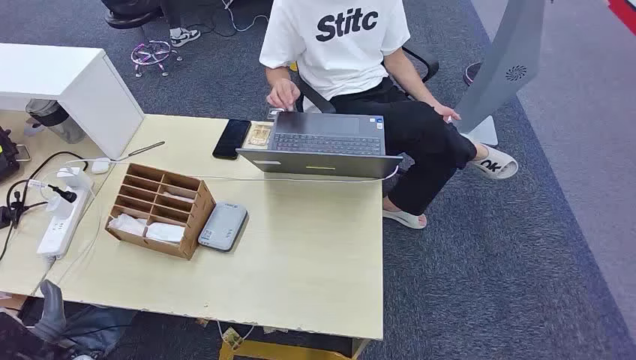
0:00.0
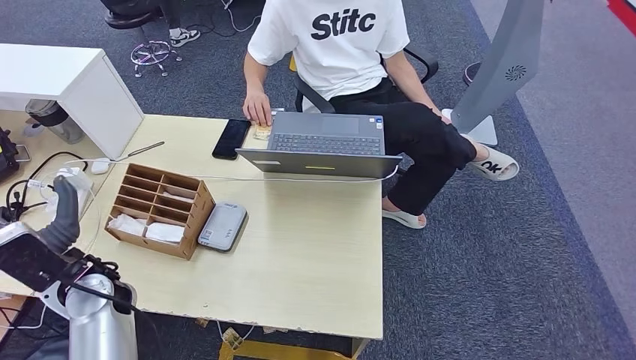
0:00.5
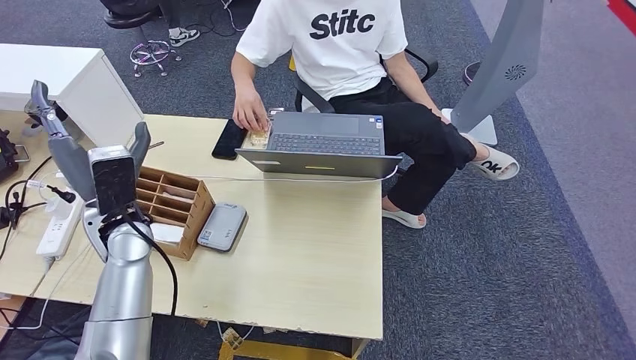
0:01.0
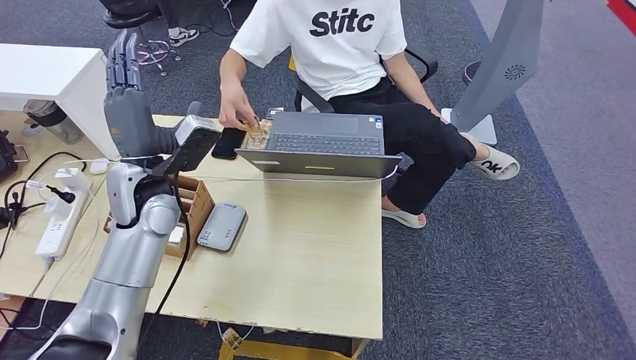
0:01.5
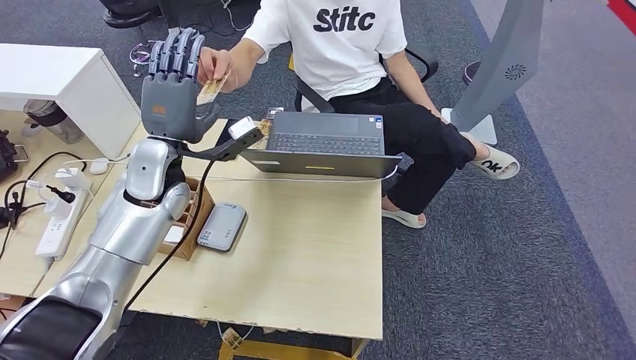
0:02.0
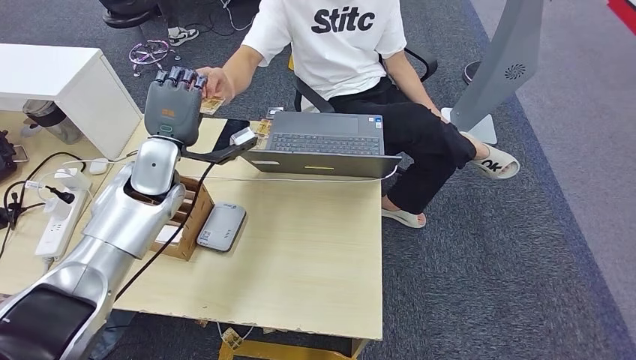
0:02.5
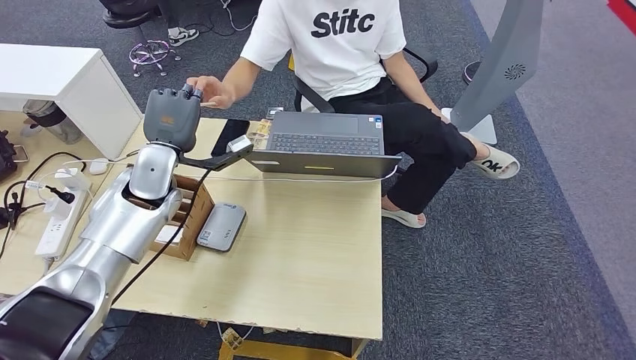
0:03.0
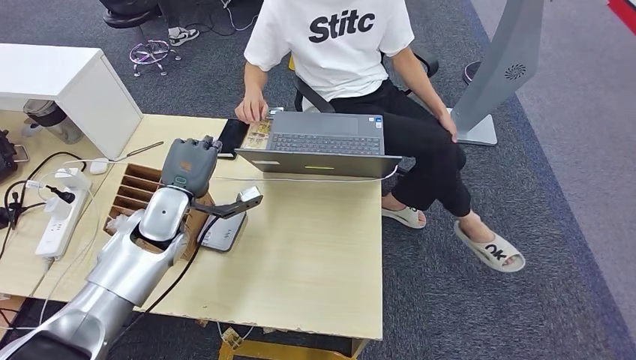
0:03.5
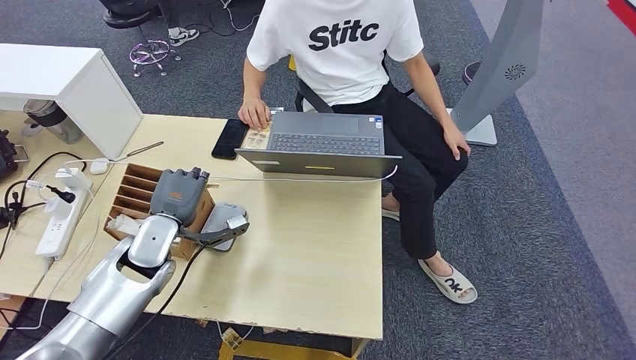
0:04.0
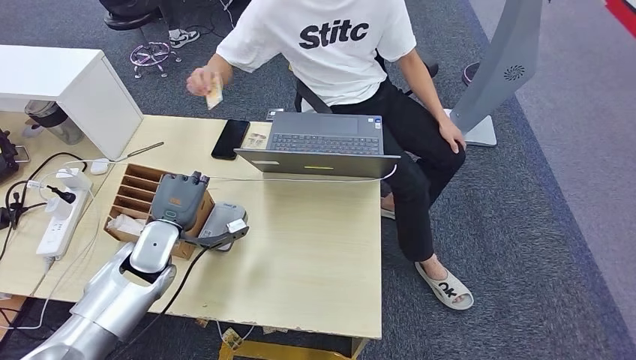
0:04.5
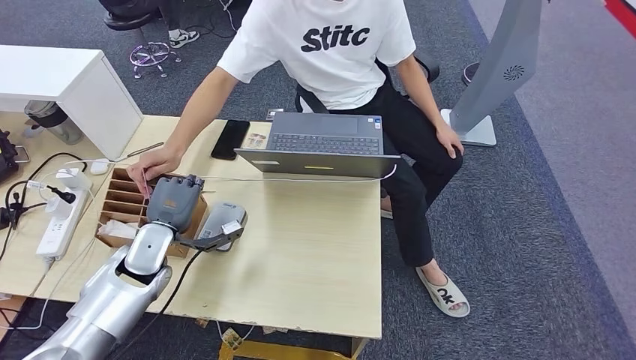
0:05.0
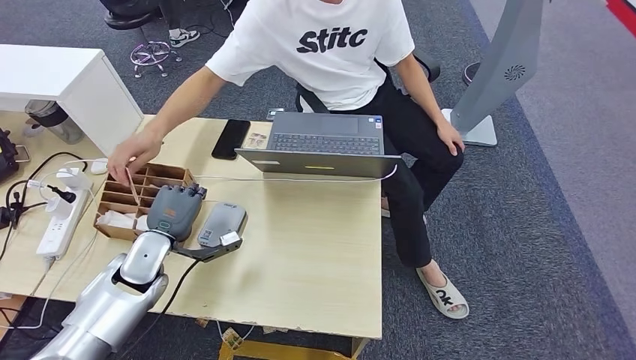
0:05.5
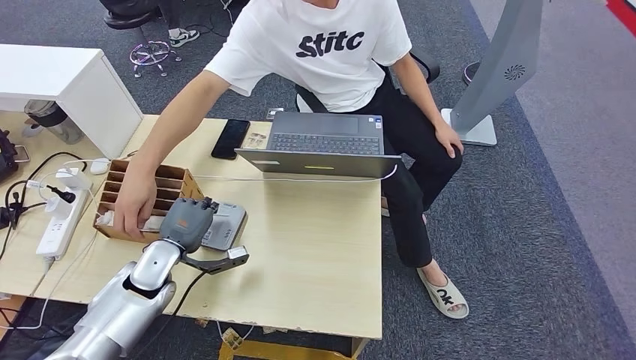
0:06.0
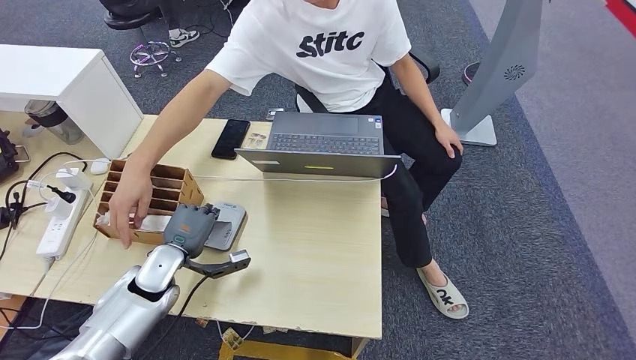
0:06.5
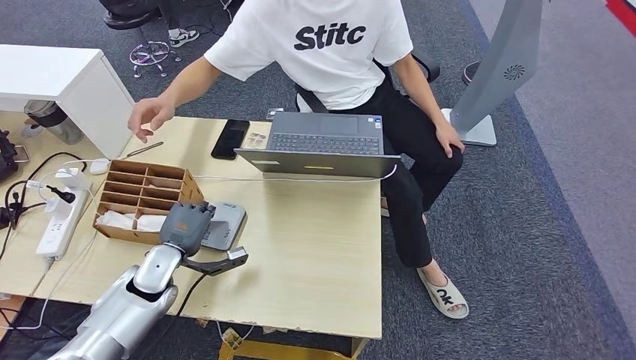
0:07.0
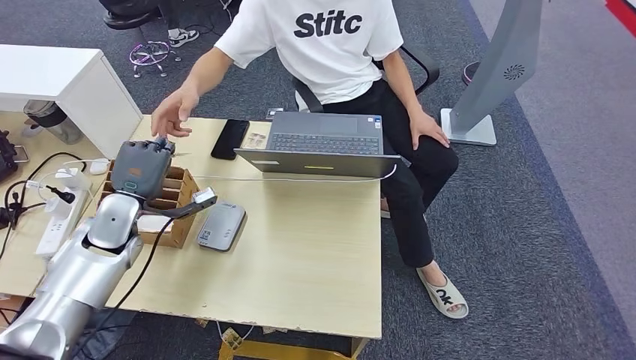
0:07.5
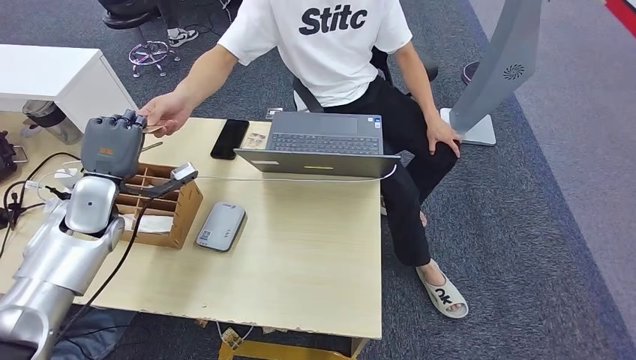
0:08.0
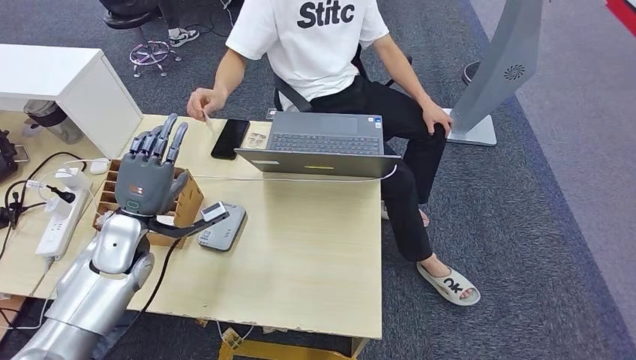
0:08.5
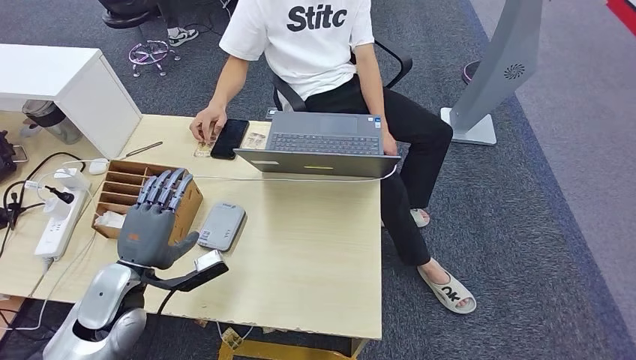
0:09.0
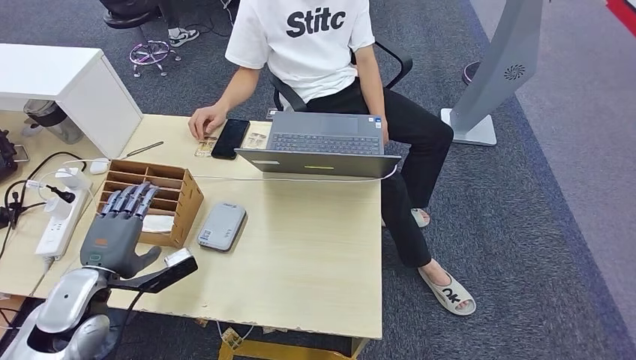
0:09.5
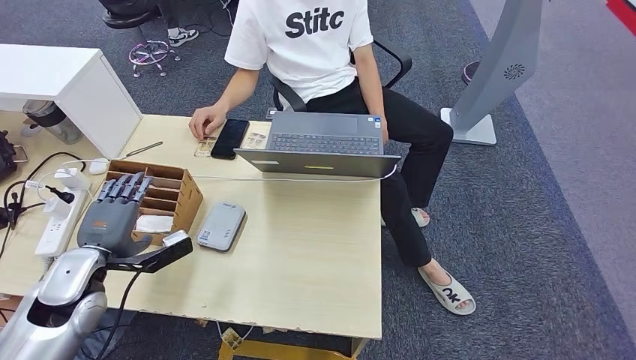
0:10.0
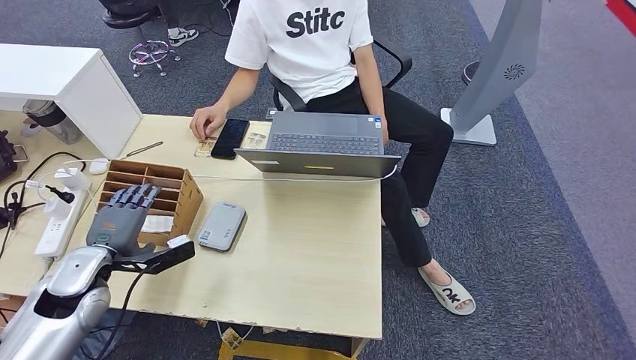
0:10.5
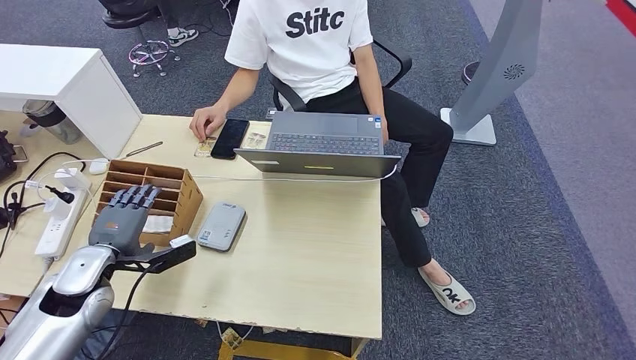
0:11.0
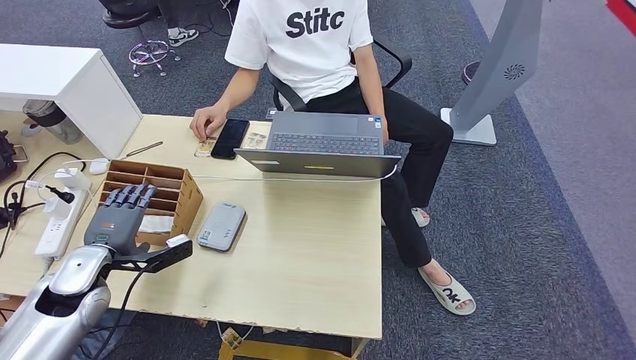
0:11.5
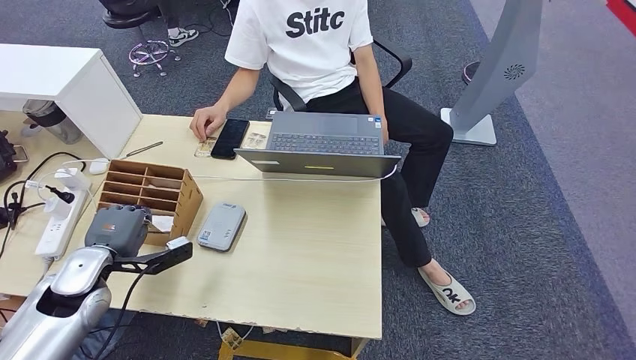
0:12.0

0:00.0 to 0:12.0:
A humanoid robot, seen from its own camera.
Step, 0:00.0 to 0:03.5: Take the ID card from the person's hand.
Step, 0:04.0 to 0:06.5: Place the ID card on the card reader.
Step, 0:07.0 to 0:08.0: Hand the ID card to the person.
0:04.0 to 0:06.0: The left hand shifts approximately 5 cm downward.
0:08.0 to 0:10.0: The left hand goes approximately 10 cm backward.
0:10.0 to 0:12.0: There are only small adjustments of the hands.

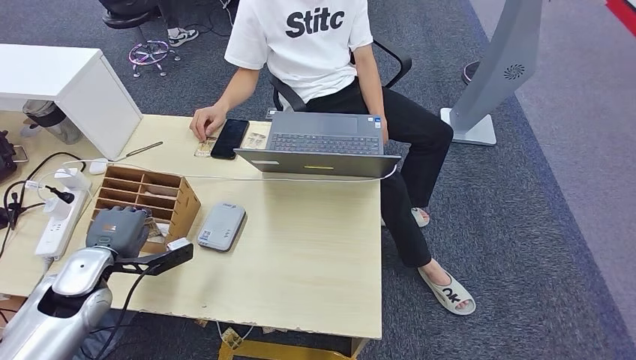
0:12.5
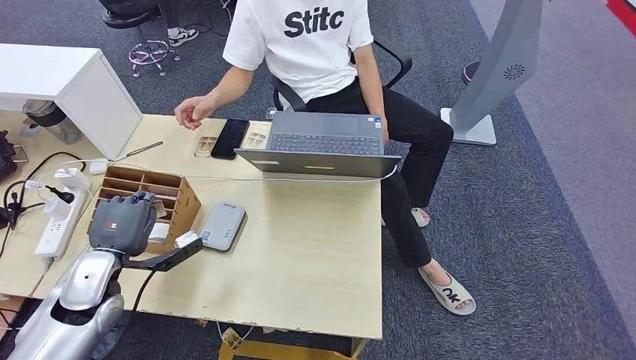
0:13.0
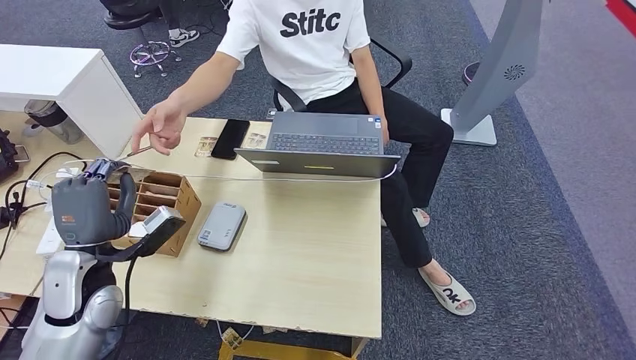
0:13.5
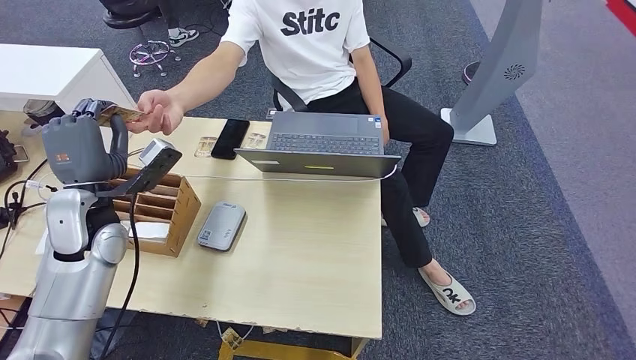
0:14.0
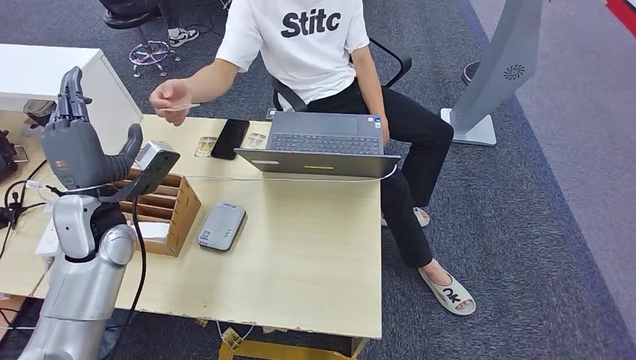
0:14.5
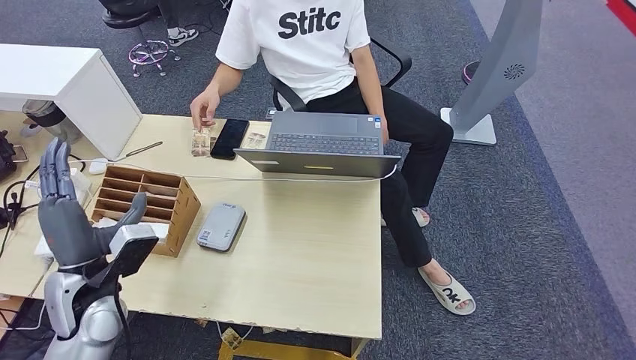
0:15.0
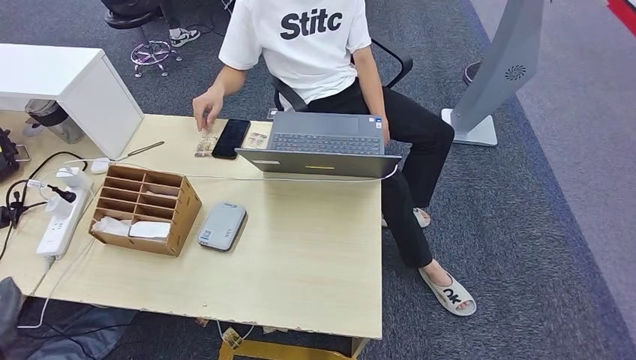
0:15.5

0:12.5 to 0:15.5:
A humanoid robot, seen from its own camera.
Step, 0:13.5 to 0:15.5: Hand the room key to the person.
0:12.5 to 0:14.0: The left hand goes about 10 cm upward and forward.
0:14.0 to 0:15.5: The left hand travels backward and downward by approximately 25 cm.
